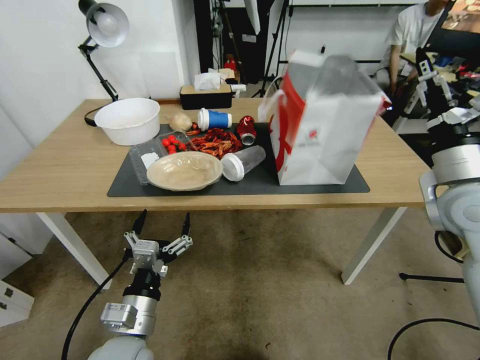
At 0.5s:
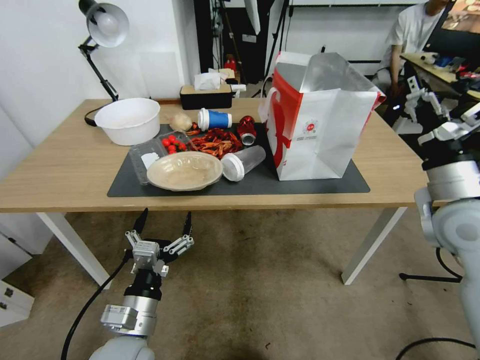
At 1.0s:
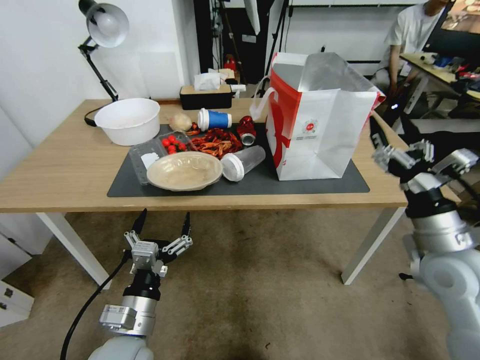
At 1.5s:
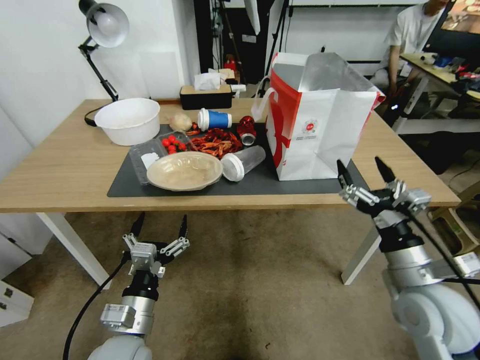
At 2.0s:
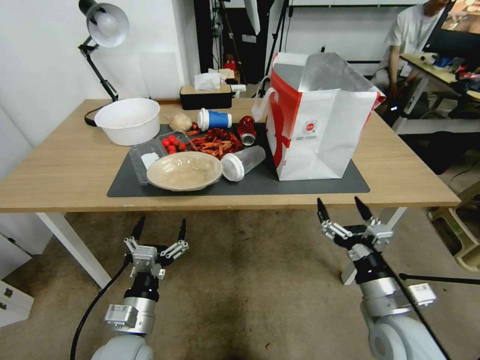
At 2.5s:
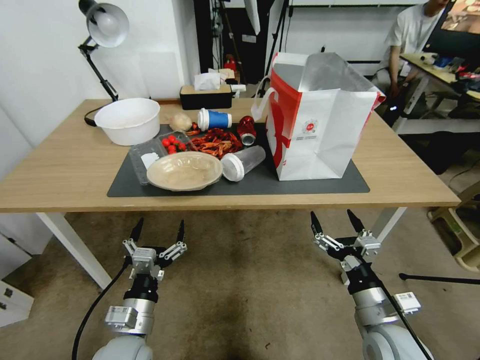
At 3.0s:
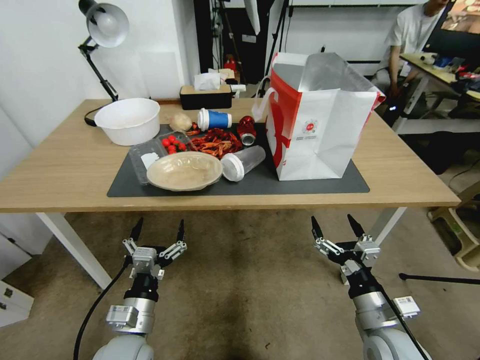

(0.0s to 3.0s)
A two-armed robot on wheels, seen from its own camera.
Task of the whole recording: Pick up the food delivery bag from the floor and place it on the table.
0.0s - 1.5s: The right gripper travels downward, backward and to the left by some 20 cm.
1.5s - 3.0s: The right gripper shifts roughly 10 cm downward.

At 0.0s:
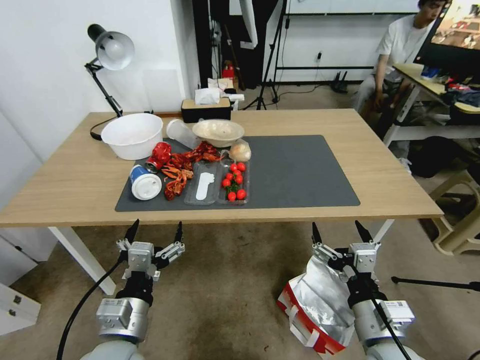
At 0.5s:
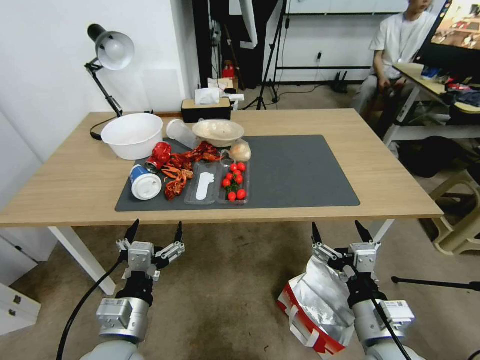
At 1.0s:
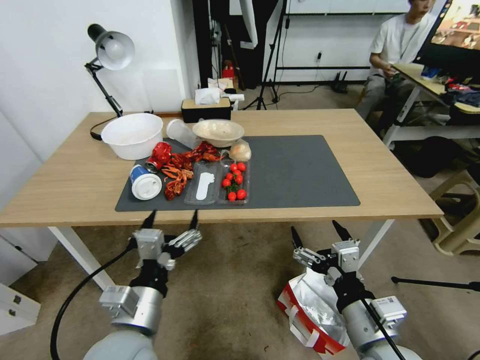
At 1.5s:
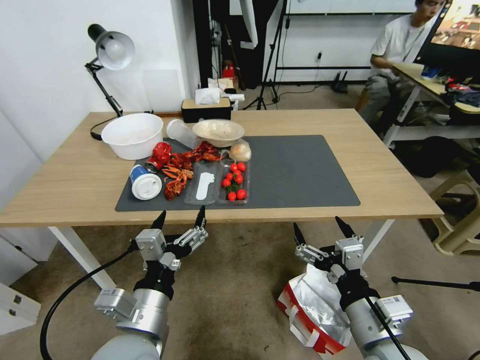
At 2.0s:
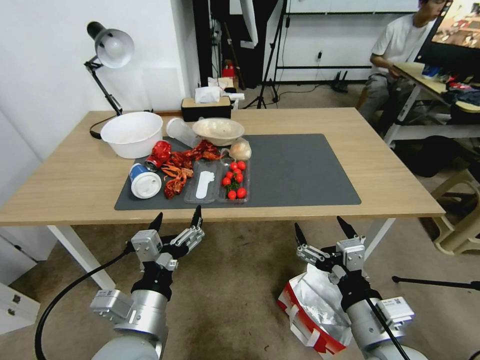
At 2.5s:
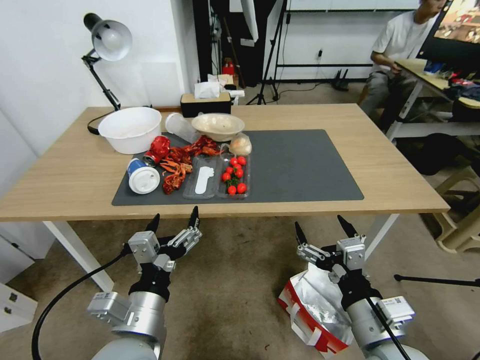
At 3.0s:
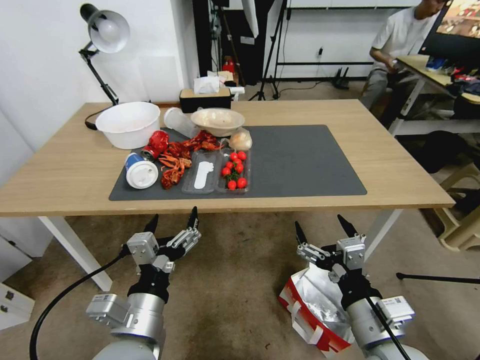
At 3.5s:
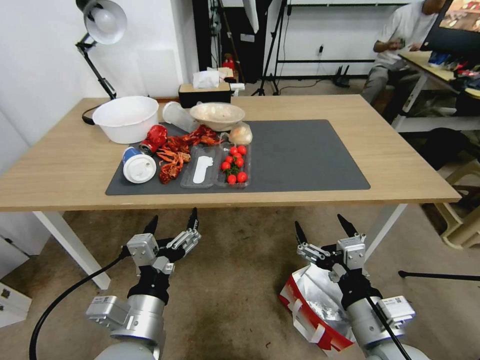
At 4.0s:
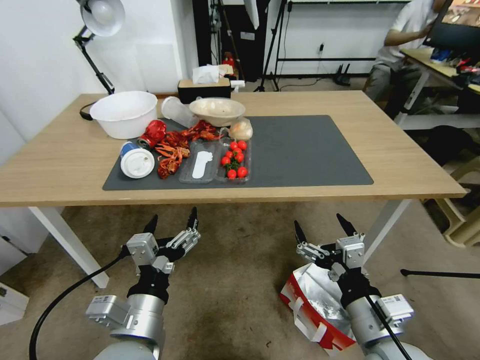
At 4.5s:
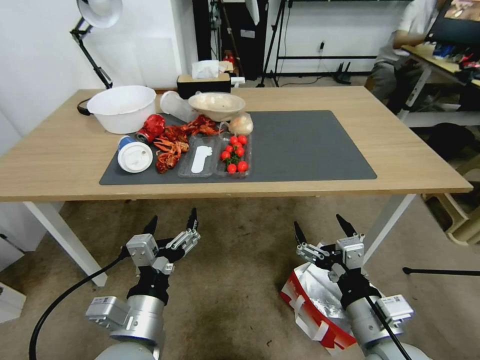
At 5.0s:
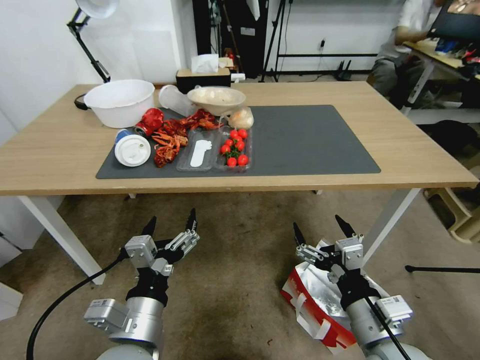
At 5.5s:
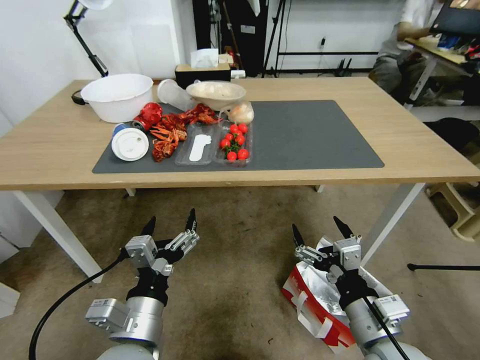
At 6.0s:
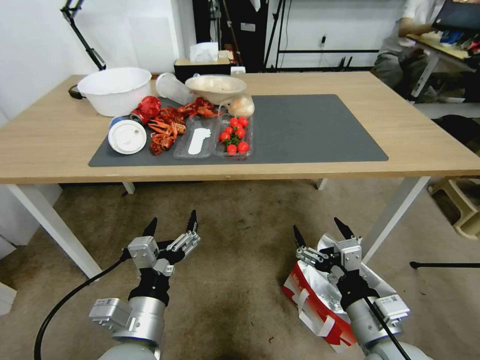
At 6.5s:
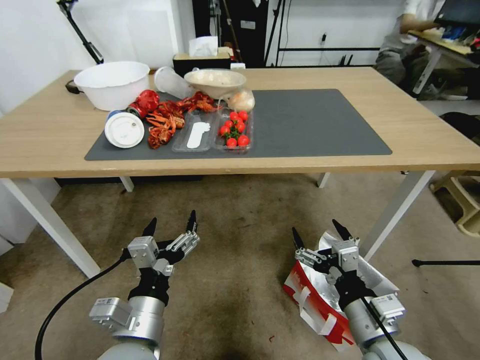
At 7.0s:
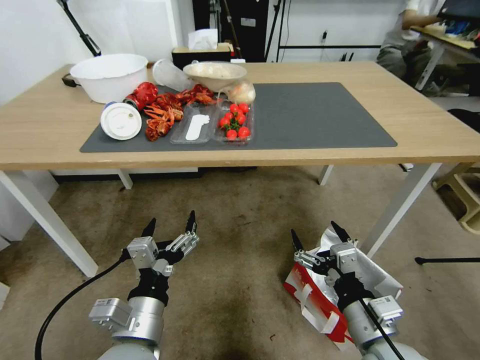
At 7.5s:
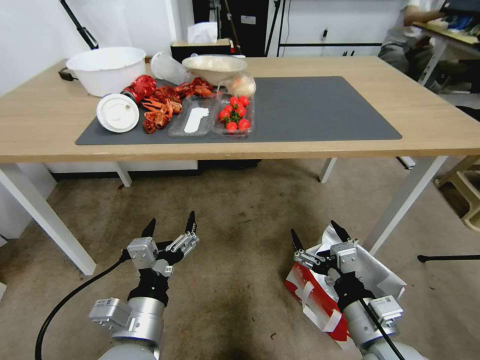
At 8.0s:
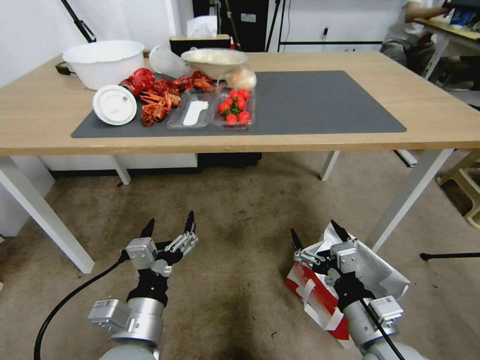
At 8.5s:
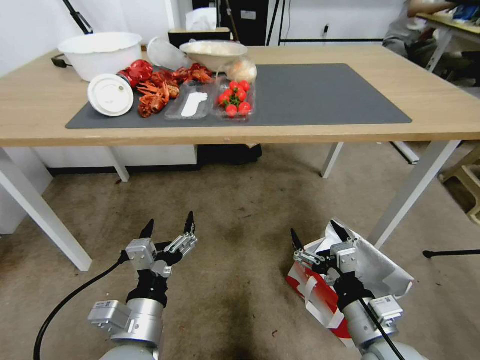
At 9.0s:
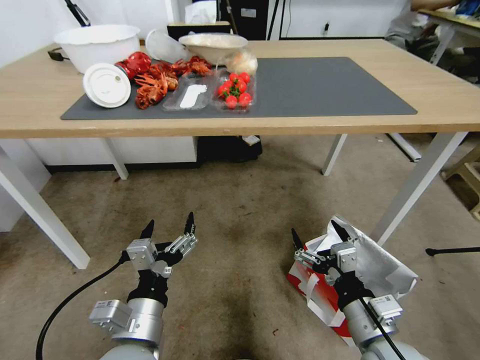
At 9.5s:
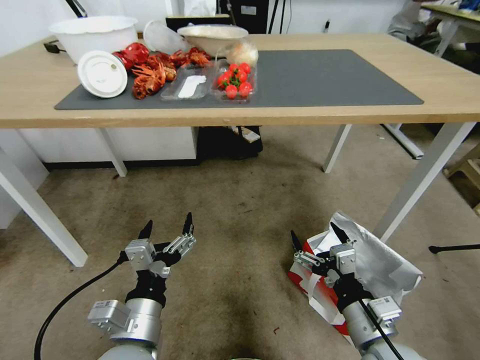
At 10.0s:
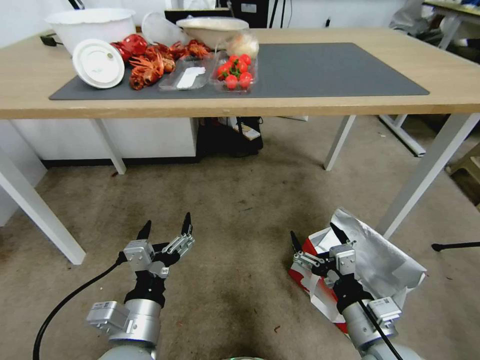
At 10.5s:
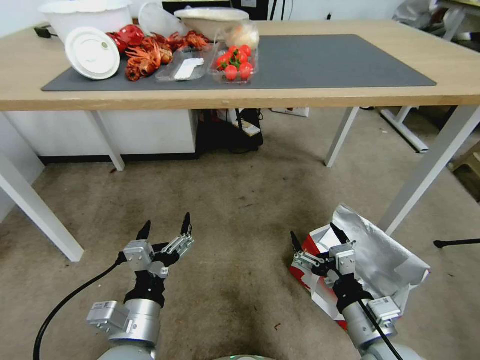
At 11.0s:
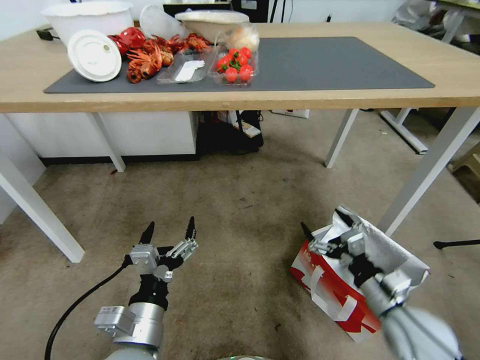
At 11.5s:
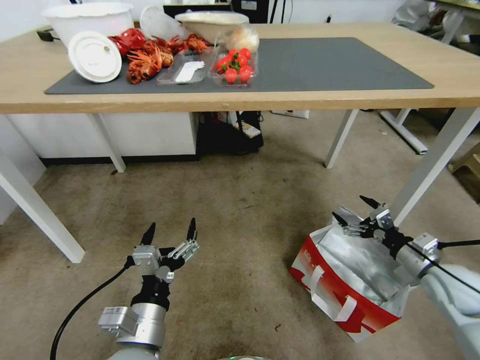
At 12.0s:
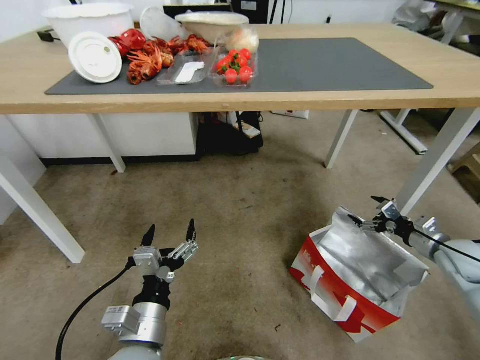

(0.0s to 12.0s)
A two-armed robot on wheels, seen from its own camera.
Task of the whole recording: Pick up the food delivery bag from the floor and place it on the table.
10.0s - 12.0s: The right gripper travels to the right and forward by some 35 cm.

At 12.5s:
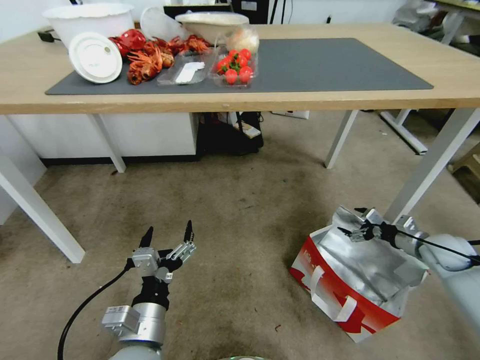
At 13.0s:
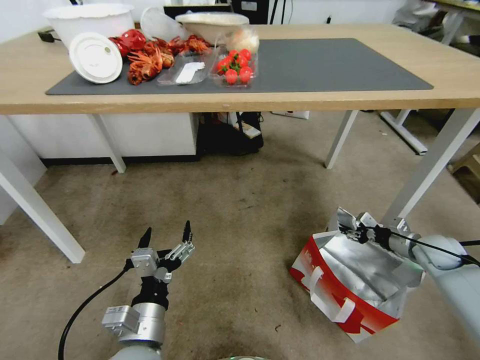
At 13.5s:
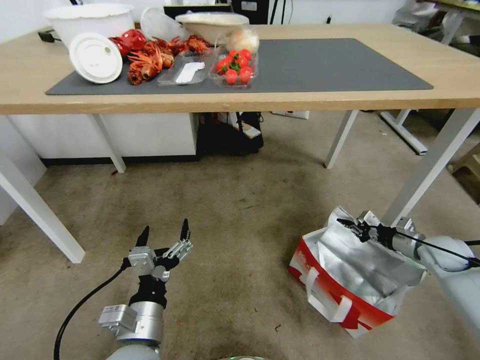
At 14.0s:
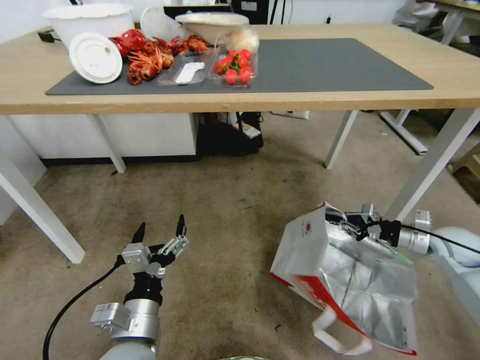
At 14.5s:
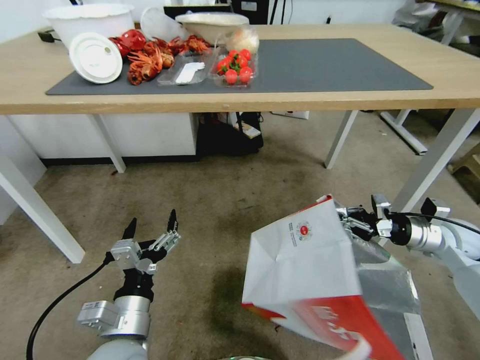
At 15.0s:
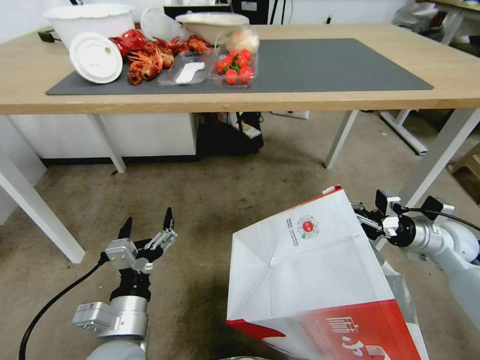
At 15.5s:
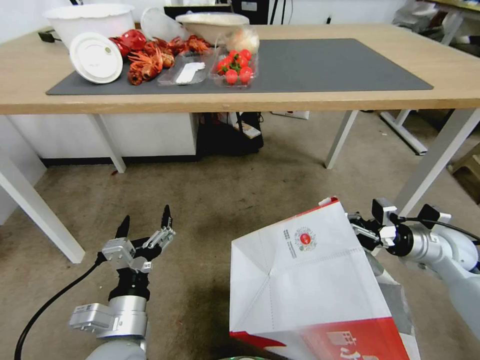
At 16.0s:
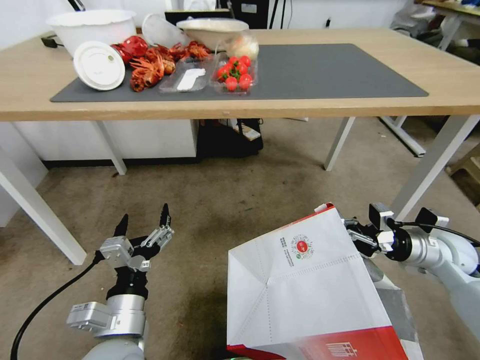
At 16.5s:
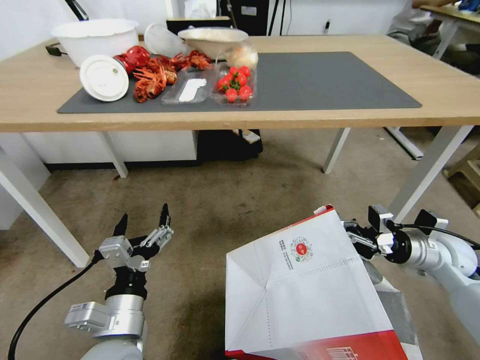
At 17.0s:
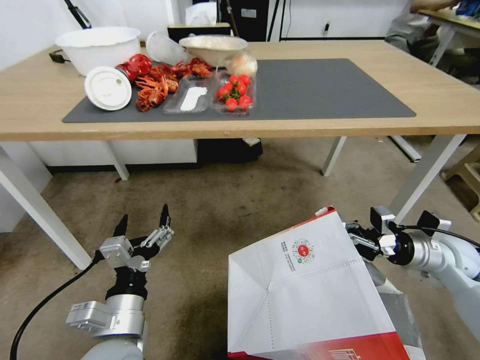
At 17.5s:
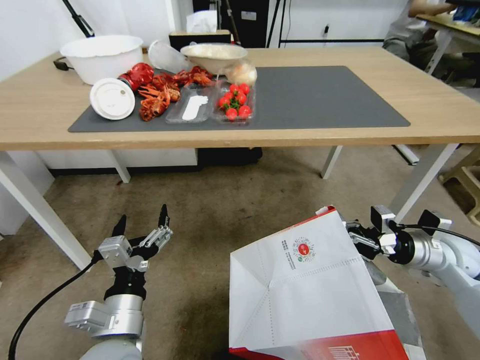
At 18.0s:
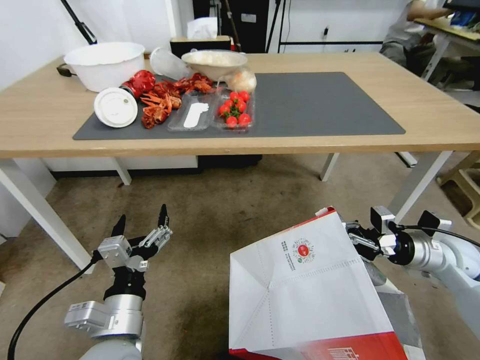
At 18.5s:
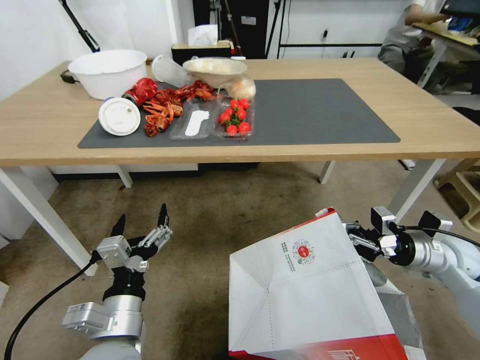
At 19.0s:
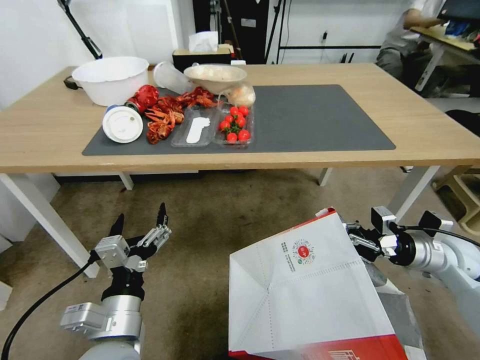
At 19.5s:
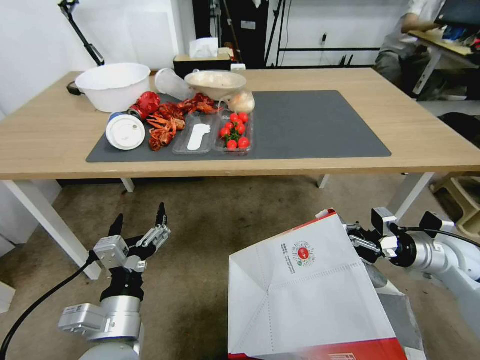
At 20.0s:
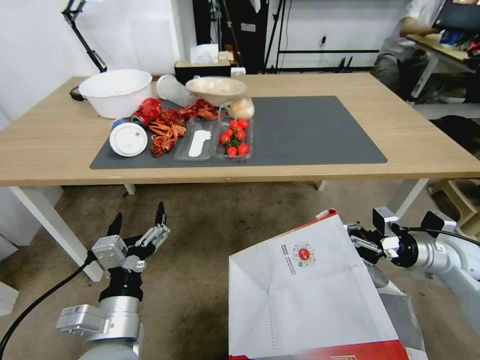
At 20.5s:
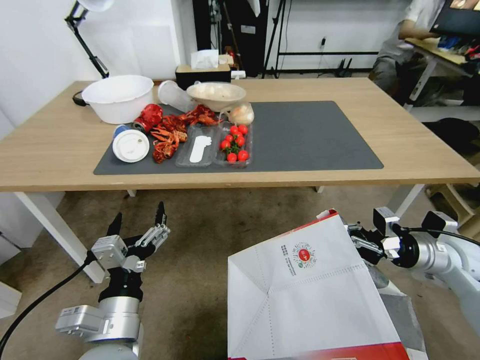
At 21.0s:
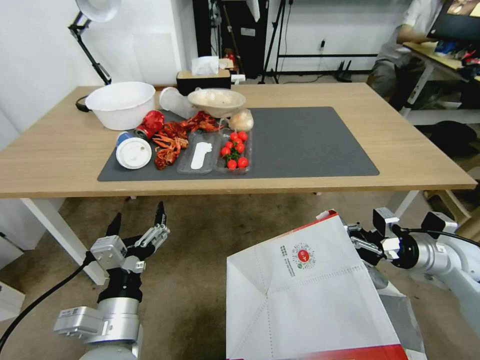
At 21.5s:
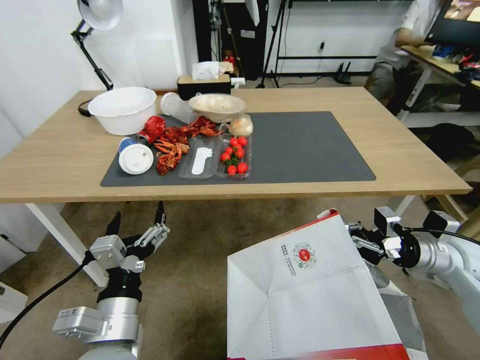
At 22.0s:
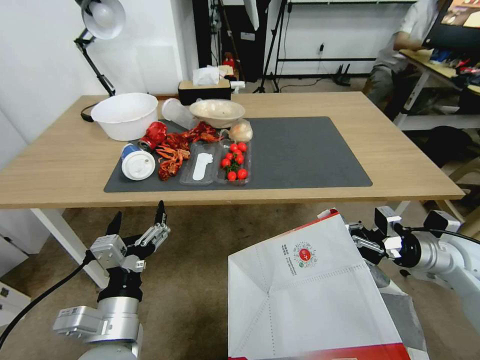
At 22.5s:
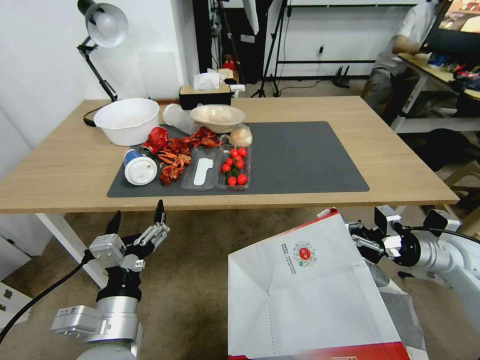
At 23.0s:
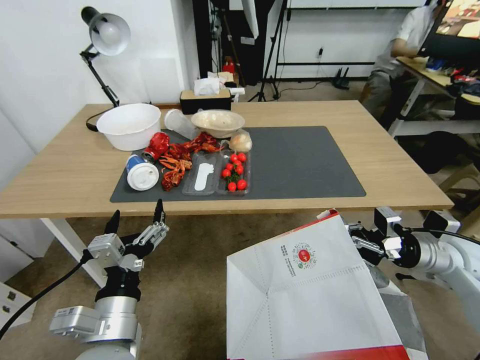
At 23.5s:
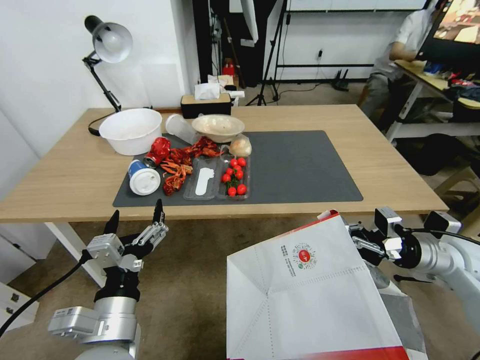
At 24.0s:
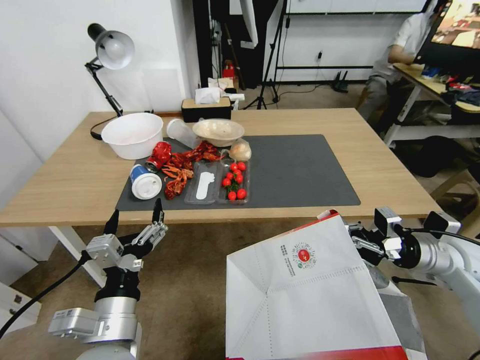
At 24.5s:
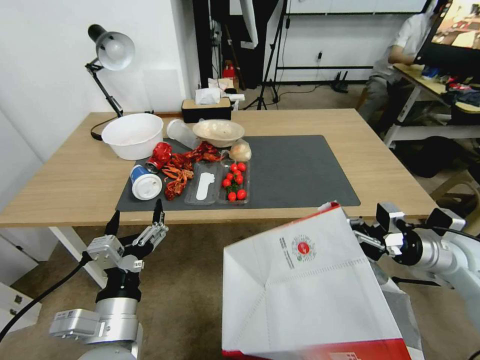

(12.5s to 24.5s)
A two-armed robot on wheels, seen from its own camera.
Task of the whole recording: Pick up the food delivery bag from the floor and place it on the table.
12.5s - 14.5s: The right gripper goes some 10 cm upward, and closes up.
14.5s - 16.5s: The right gripper changes place by roughly 5 cm.
